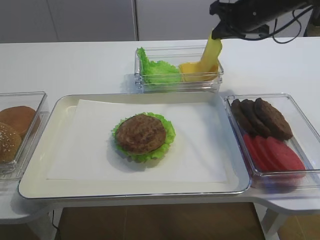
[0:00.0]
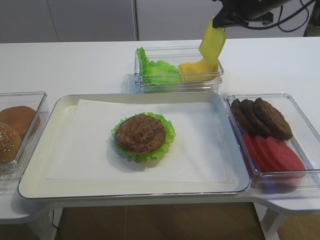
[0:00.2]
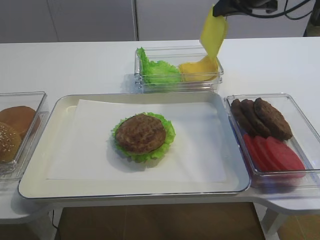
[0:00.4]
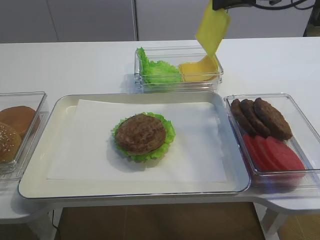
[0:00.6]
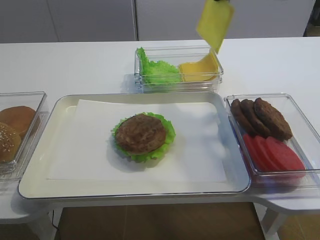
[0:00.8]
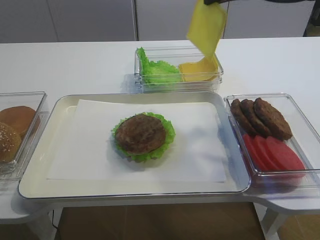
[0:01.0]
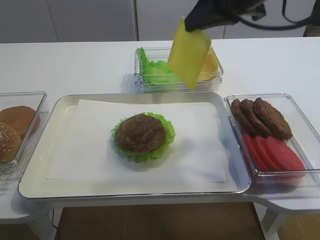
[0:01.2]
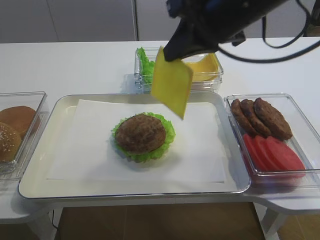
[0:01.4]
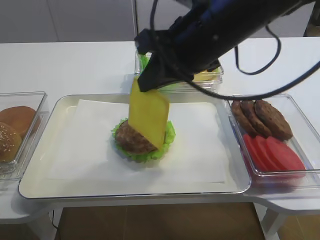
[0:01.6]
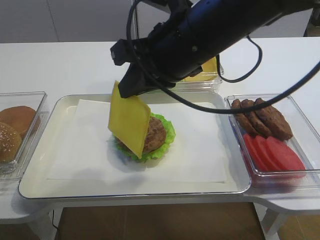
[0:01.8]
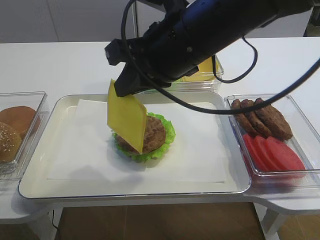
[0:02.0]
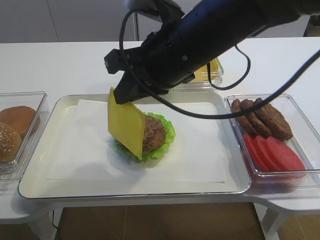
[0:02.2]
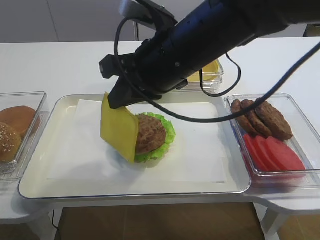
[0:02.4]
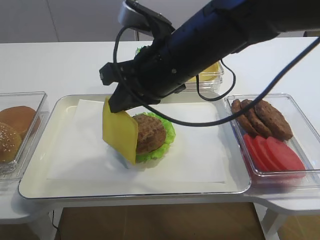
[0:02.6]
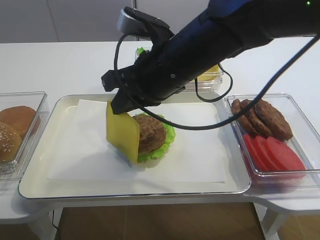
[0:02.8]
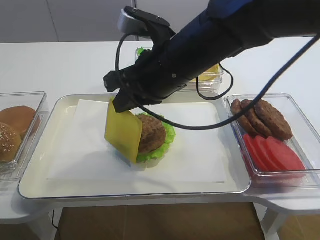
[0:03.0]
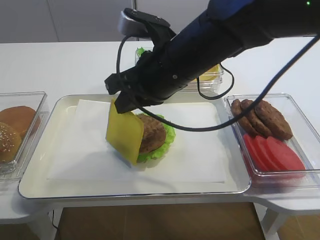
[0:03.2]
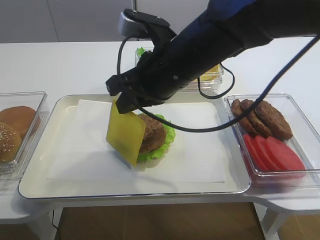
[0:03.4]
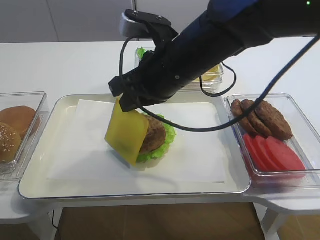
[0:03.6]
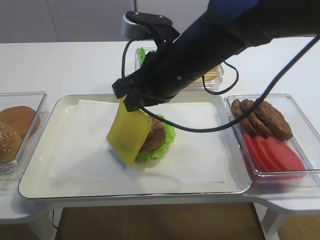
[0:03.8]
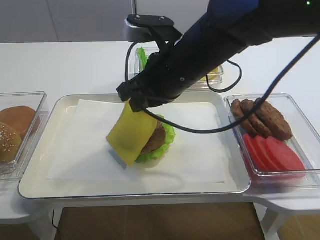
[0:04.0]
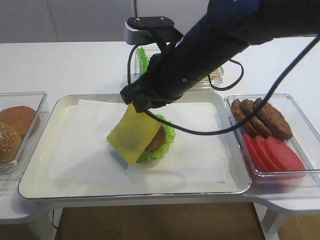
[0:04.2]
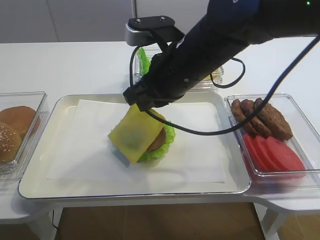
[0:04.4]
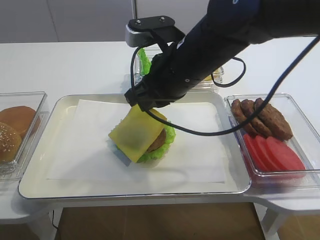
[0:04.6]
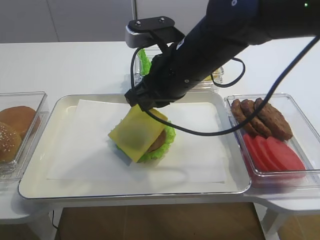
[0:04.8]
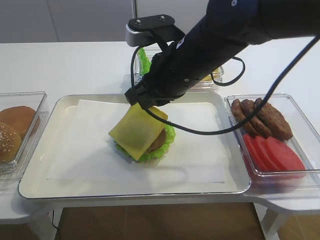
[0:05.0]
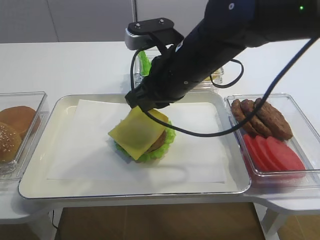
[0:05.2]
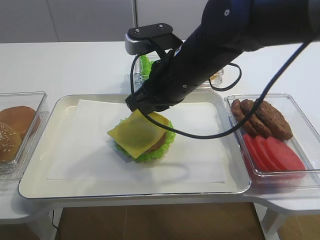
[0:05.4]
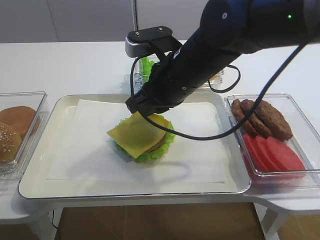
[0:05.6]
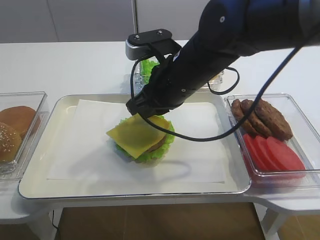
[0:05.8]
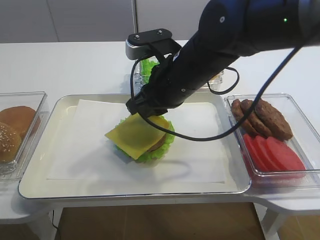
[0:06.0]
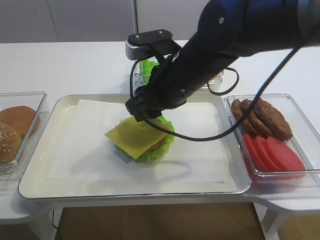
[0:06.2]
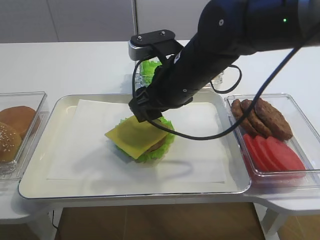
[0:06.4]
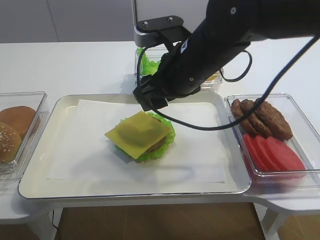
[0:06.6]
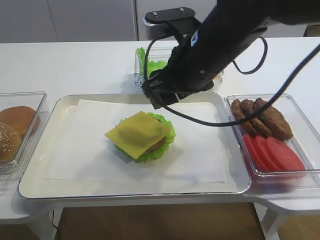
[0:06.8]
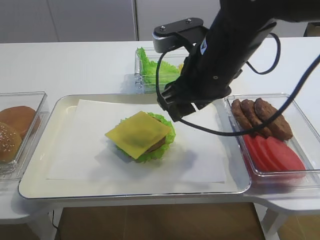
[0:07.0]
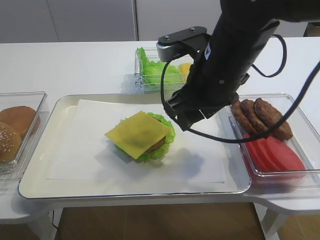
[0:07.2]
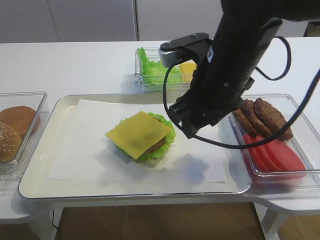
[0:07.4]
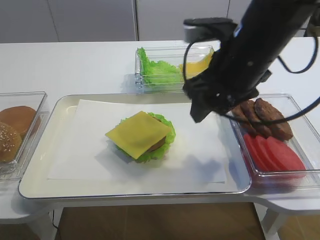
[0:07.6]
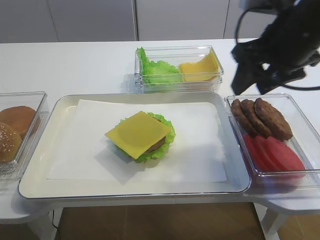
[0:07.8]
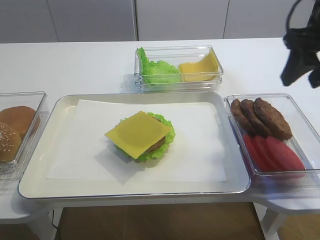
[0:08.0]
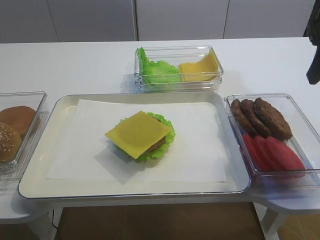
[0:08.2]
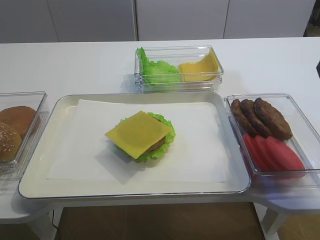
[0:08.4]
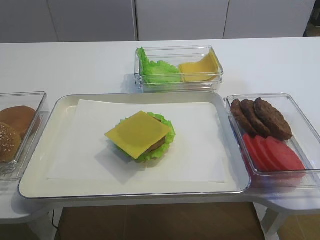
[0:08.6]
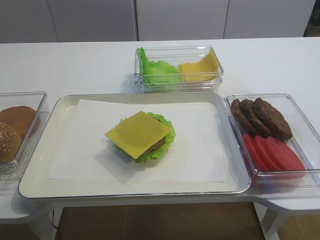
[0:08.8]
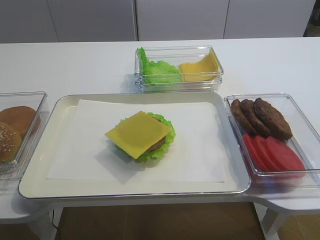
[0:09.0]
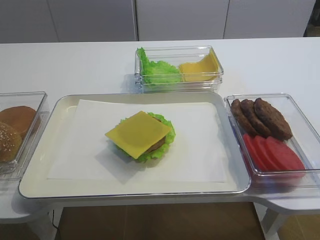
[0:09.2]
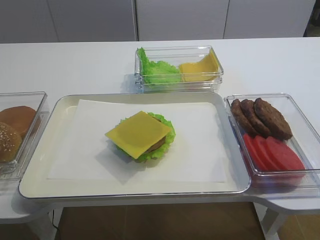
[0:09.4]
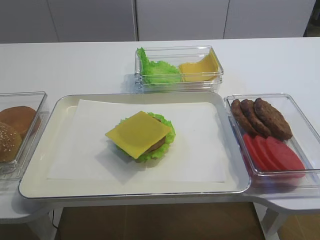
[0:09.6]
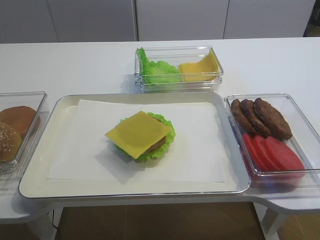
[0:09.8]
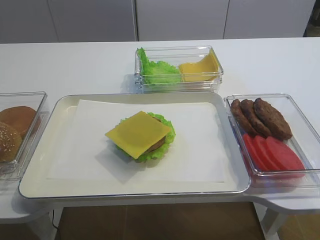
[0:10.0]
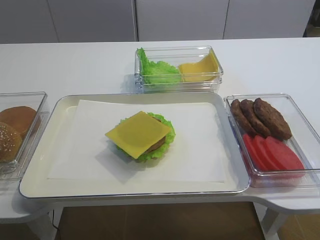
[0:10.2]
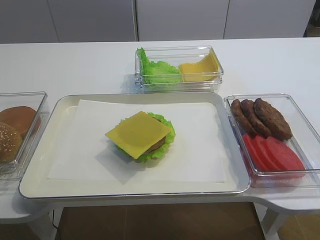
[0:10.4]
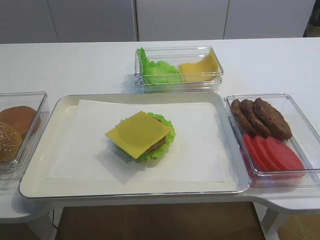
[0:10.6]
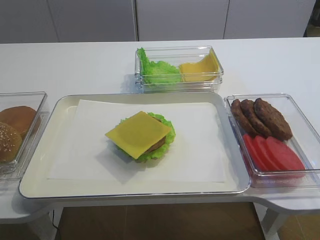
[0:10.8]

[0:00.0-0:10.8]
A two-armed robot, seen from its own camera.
Step, 0:00.2 to 0:06.4: Place the cheese slice on the cutlet with the right gripper.
0:00.0 to 0:01.6: The right gripper heads backward and to the left, covering roughly 20 cm.
0:01.6 to 0:03.0: The right gripper shifts by approximately 5 cm.
0:03.0 to 0:04.6: There are only small adjustments of the grippers.
0:04.6 to 0:06.2: The right gripper opens.
0:06.2 to 0:07.8: The right gripper heads to the right and upward, covering approximately 15 cm.
0:07.8 to 0:09.2: The right gripper travels backward and to the right by roughly 20 cm.
0:09.2 to 0:10.8: The right gripper travels backward and downward by about 15 cm.

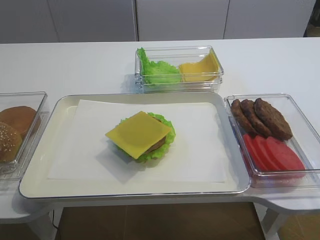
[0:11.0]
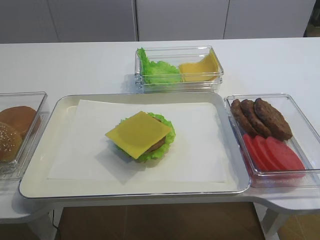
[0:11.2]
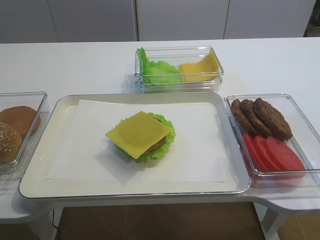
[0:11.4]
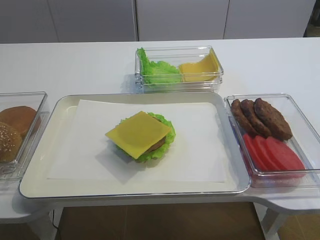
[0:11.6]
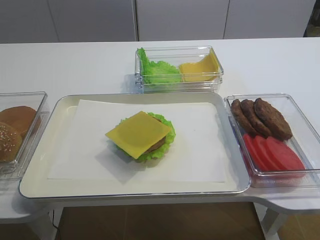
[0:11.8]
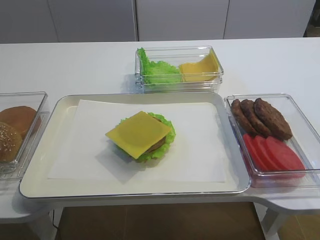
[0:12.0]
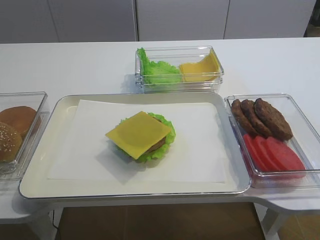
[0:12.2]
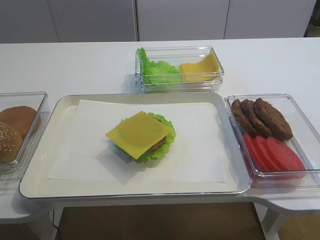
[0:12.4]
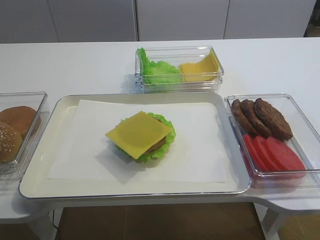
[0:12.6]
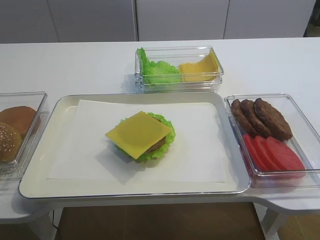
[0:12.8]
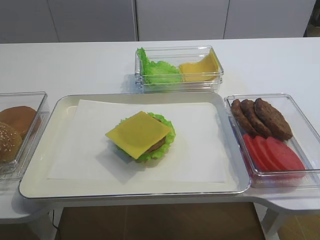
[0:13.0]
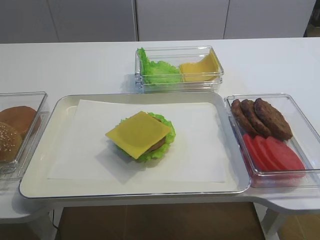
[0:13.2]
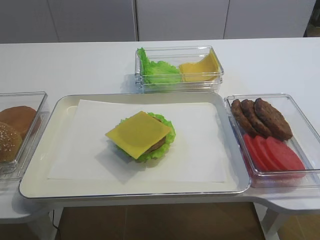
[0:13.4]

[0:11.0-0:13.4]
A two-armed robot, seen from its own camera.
0:11.0 to 0:13.4: Both grippers stay about where they are.

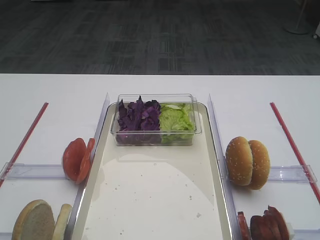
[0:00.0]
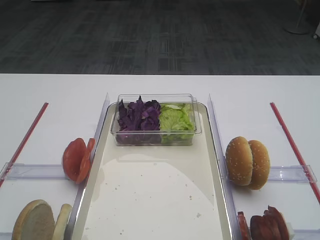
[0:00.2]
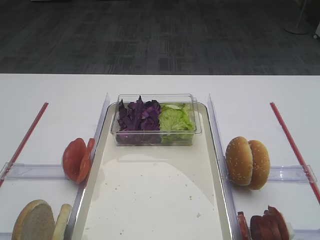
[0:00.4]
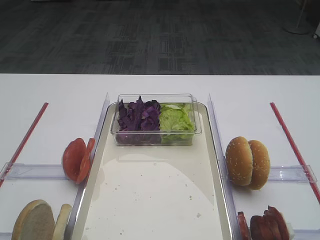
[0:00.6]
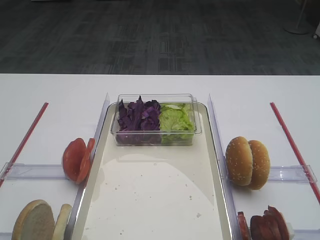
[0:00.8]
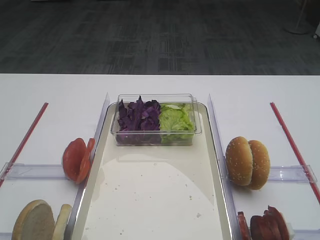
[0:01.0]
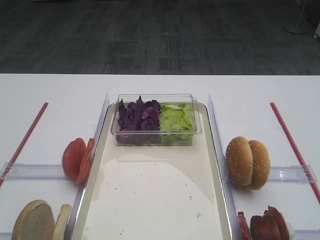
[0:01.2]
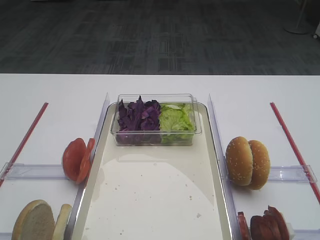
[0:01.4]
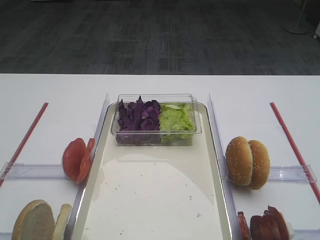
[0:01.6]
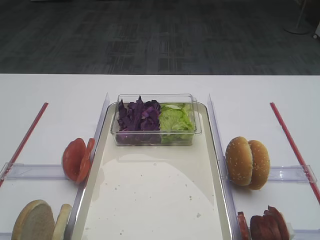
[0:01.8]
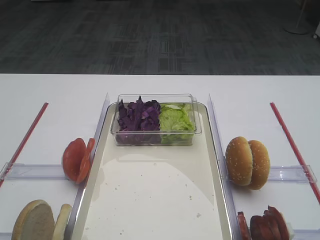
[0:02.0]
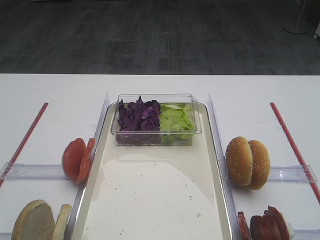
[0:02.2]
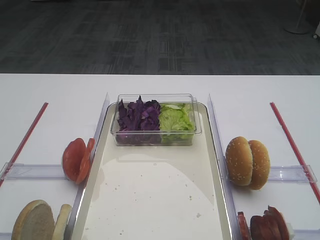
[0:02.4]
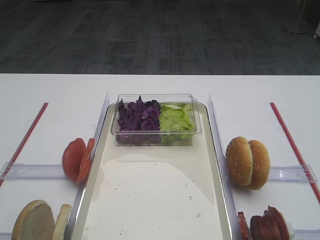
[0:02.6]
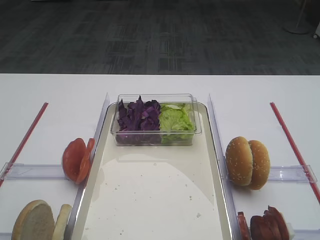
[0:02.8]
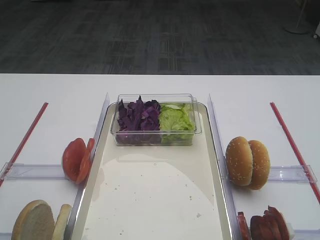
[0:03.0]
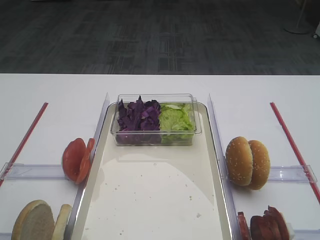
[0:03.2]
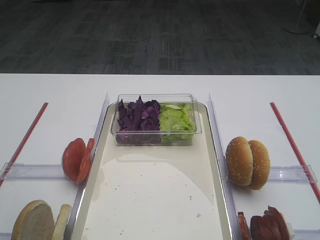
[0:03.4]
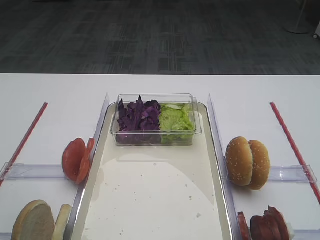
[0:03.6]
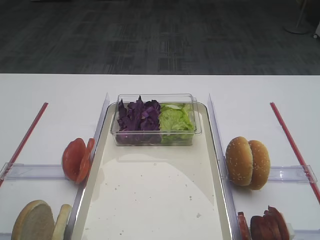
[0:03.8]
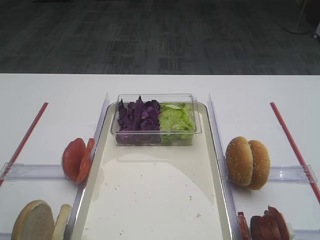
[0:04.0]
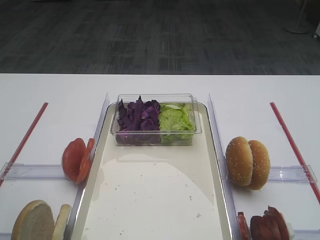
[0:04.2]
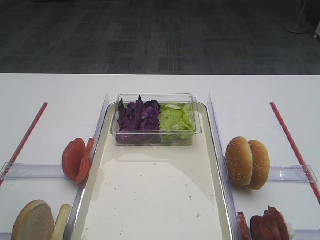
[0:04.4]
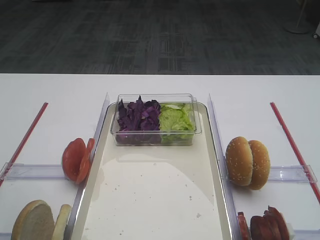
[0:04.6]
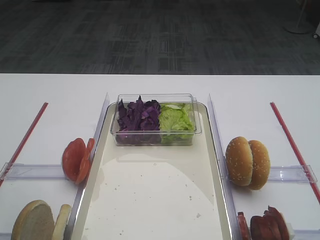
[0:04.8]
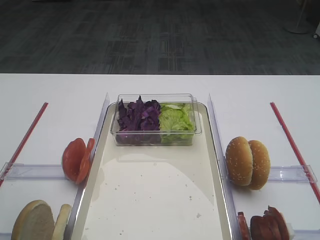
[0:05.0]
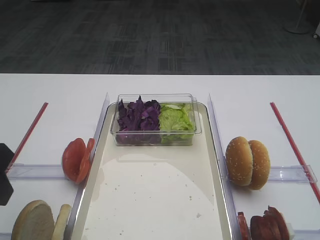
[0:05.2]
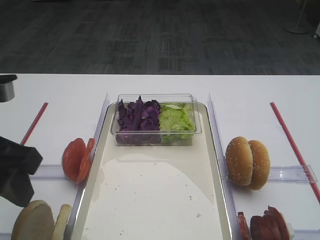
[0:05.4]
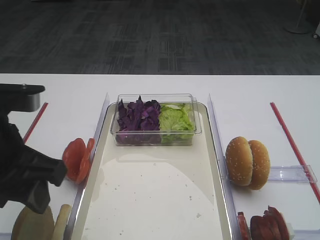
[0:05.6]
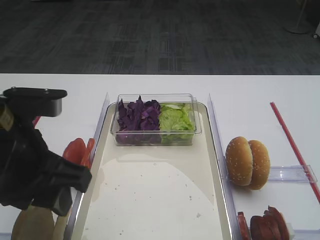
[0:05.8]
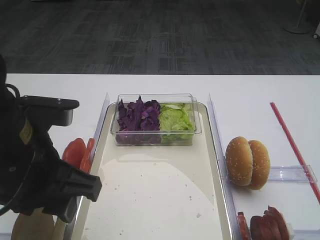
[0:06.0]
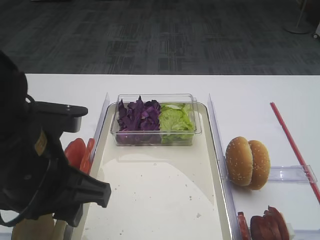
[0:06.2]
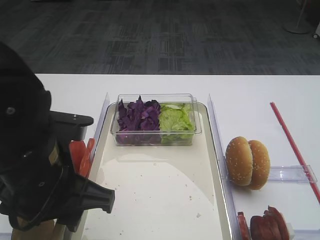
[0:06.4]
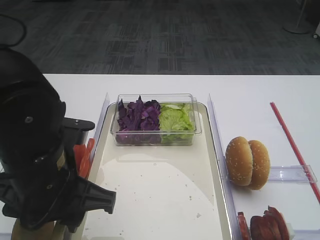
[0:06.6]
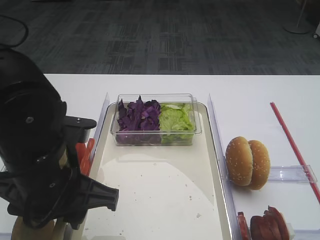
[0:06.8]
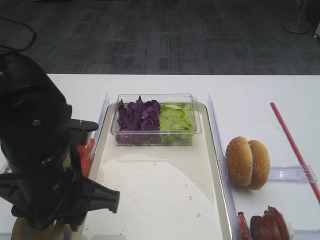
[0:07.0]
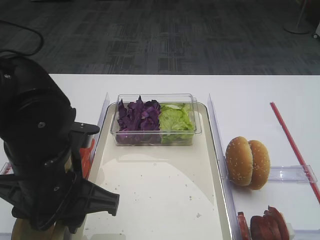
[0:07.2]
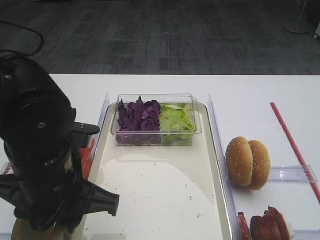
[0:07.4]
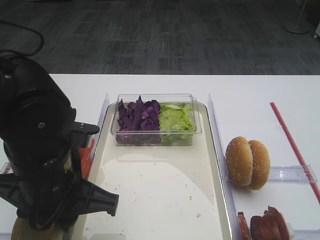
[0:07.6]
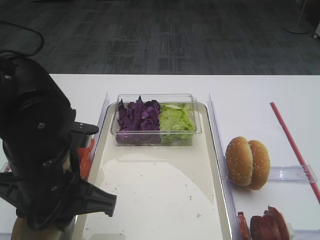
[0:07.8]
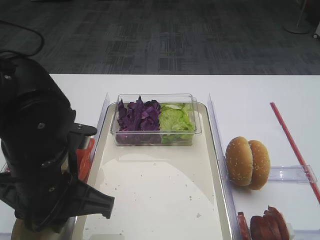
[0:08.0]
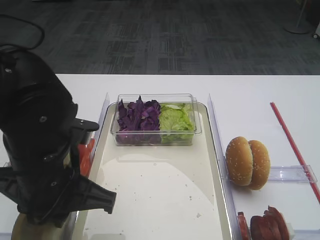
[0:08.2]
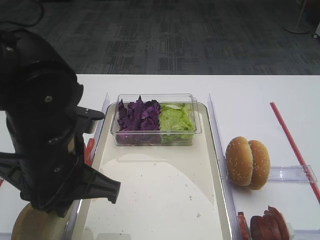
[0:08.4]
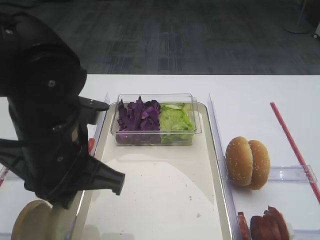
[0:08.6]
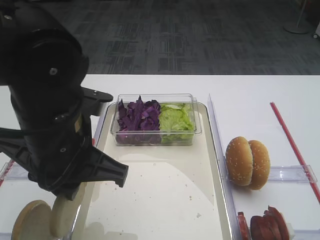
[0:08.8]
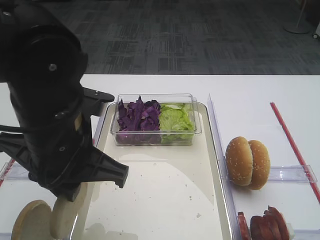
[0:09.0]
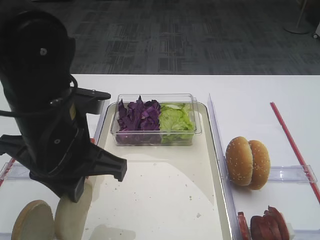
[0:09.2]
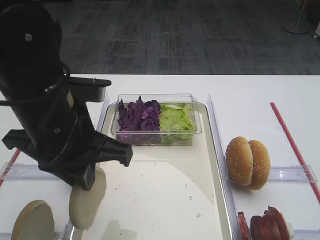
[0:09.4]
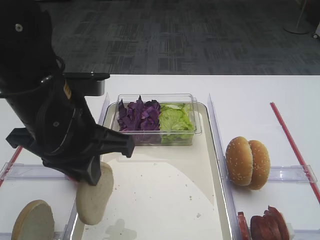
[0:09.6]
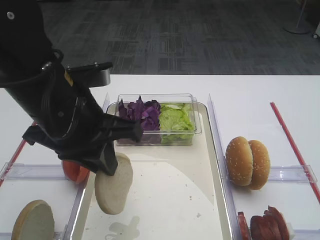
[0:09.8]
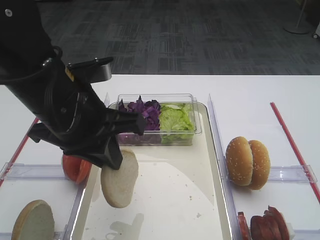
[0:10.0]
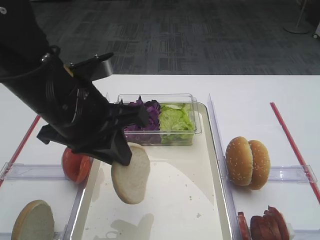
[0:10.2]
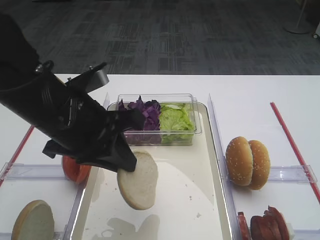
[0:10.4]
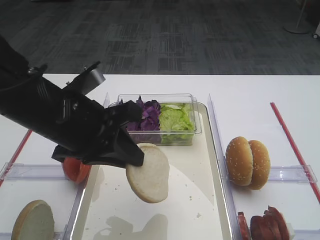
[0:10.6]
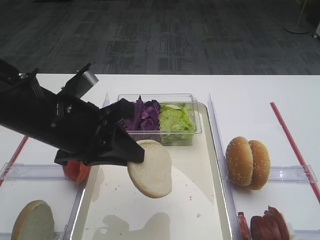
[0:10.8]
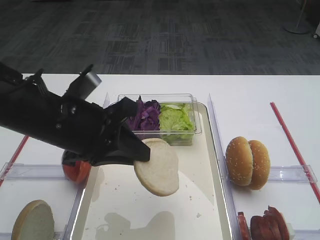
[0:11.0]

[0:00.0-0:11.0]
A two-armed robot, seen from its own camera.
Step, 0:00.0 to 0:09.0: Pick up the bread slice with the left gripper.
0:04.8 to 0:06.2: The left gripper shifts about 15 cm to the right.
0:06.2 to 0:07.8: The left gripper closes its fingers.
0:07.8 to 0:09.4: The left gripper travels upward by about 5 cm.
